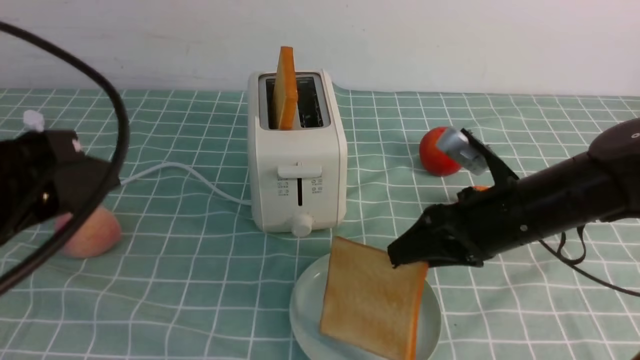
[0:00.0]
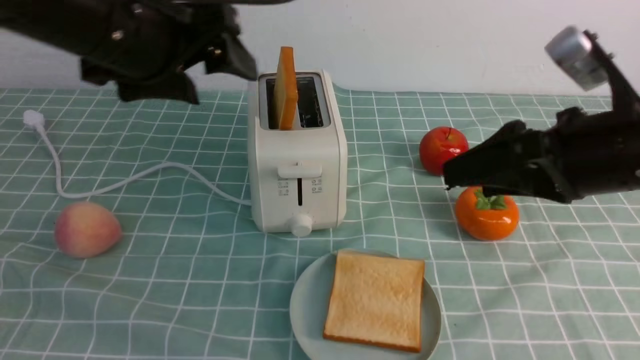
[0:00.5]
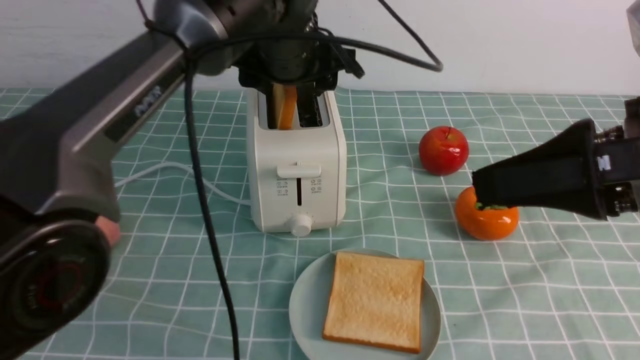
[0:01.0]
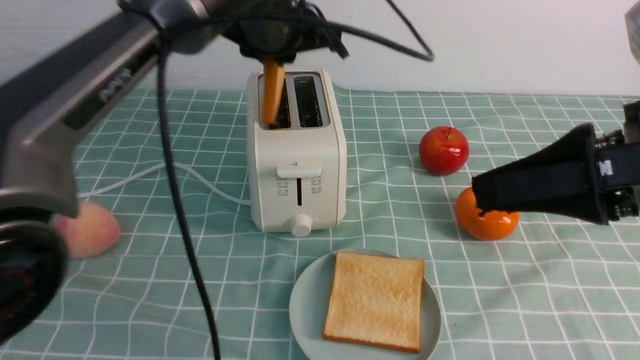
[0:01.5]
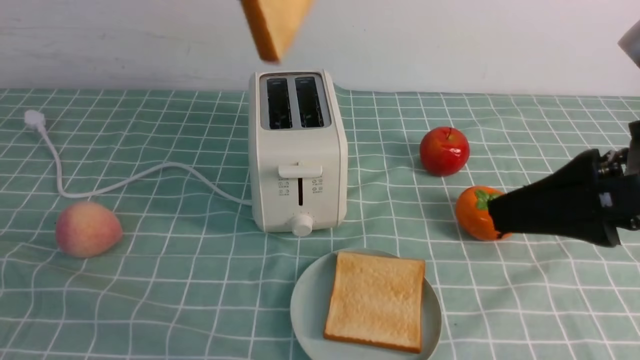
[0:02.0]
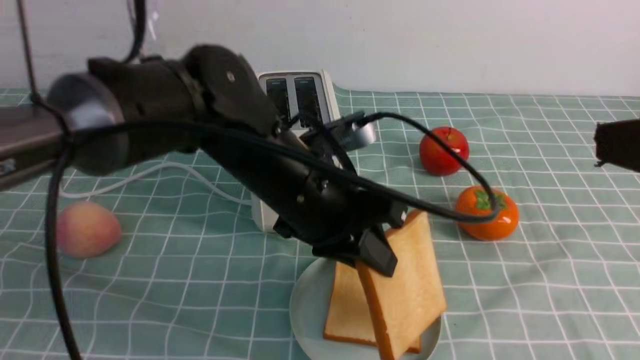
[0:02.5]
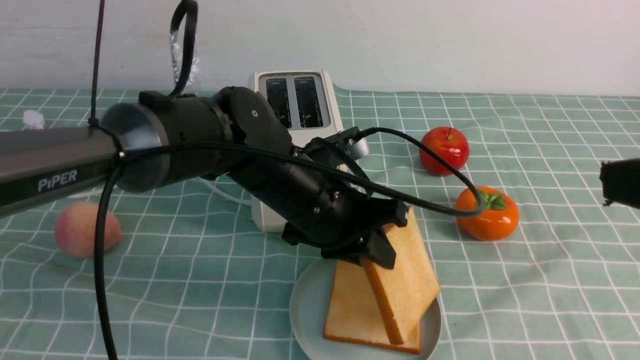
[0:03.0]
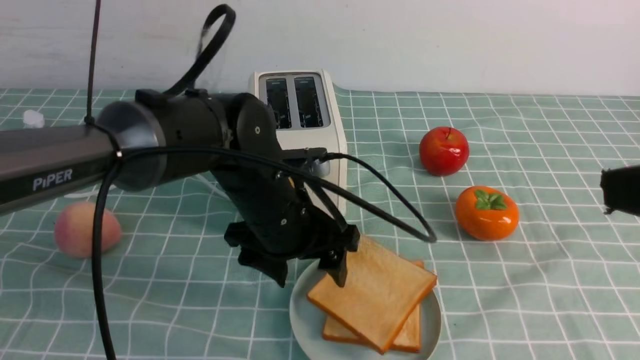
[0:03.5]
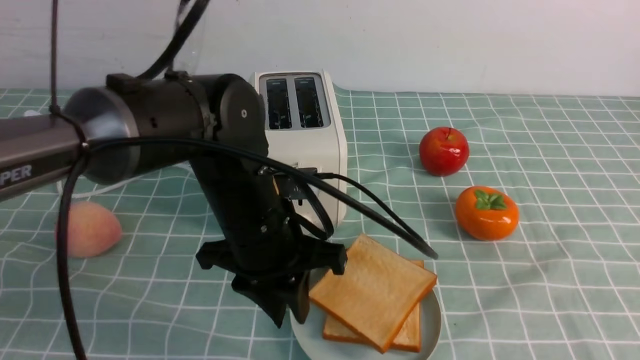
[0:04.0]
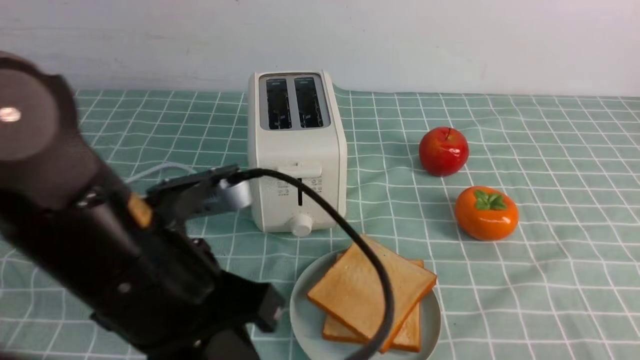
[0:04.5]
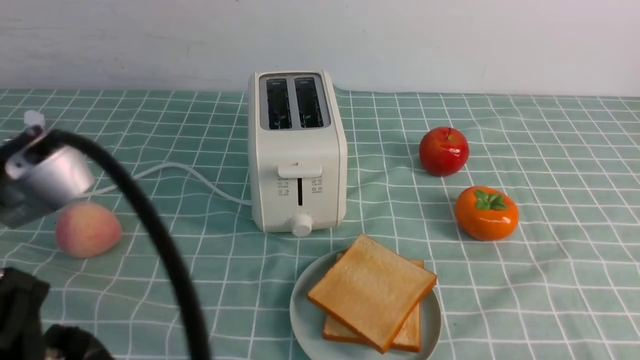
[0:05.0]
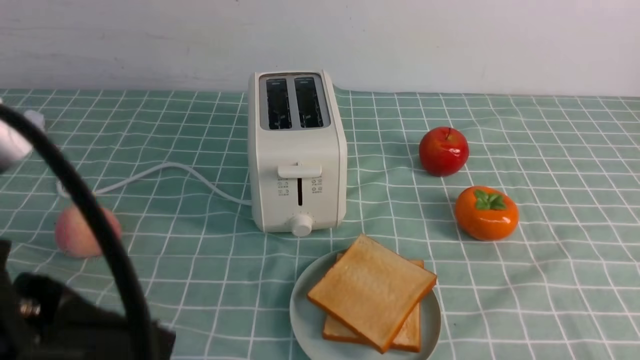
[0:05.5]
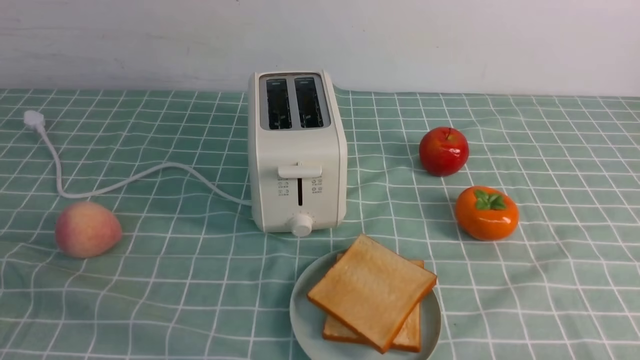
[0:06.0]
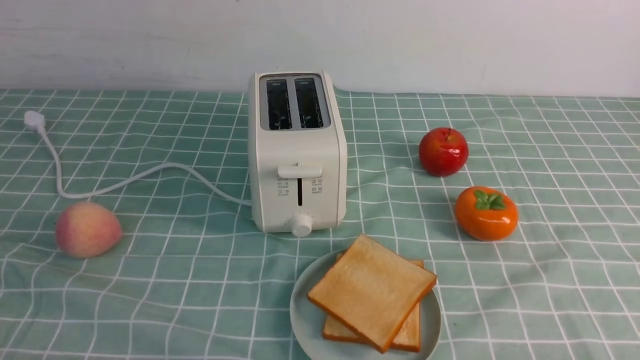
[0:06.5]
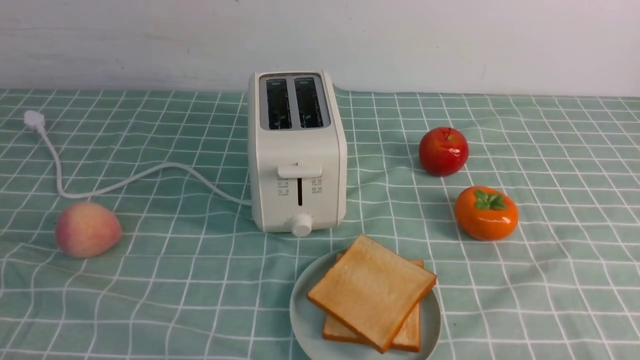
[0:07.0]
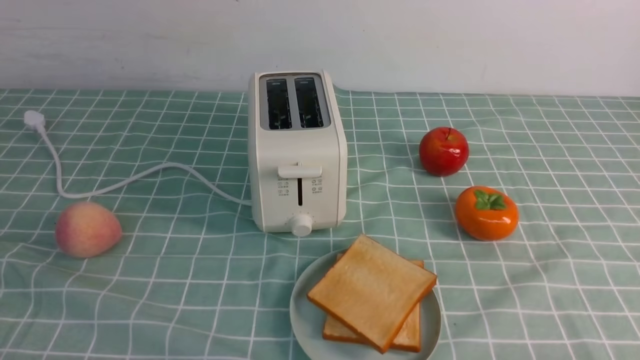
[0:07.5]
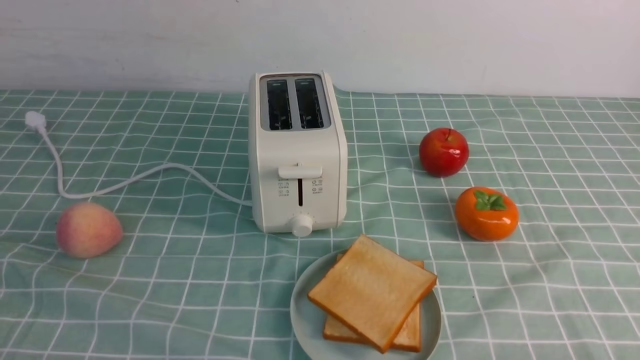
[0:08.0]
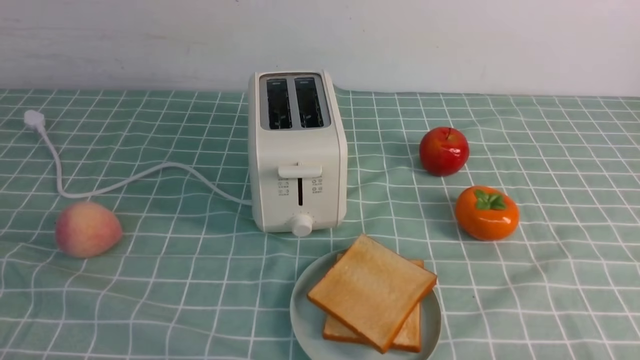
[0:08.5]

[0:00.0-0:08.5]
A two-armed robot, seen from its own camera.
Task of the whole recording: take toasted bread from bread machine on blue coffee table place on plate.
Step, 0:01.0 to 0:01.5: use the left arm to take out a slice of bread.
Step, 0:02.5 to 0:03.0: use the left arm to put a slice of bread into the empty plate.
0:00.0 to 0:02.0: The left gripper heads to the right, upward and forward, covering some 20 cm, and closes its fingers. Meanwhile the right gripper travels upward and backward by some 20 cm.
0:02.0 to 0:04.0: The right gripper is displaced backward by some 10 cm, and closes up, while the left gripper heads downward, covering about 25 cm, and opens, then closes once more.
0:04.0 to 0:06.5: The left gripper travels backward and to the left by about 30 cm; the right gripper shifts roughly 20 cm downward.
